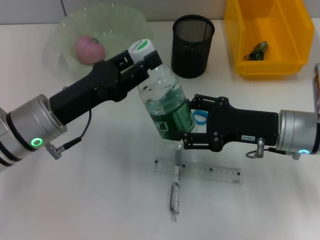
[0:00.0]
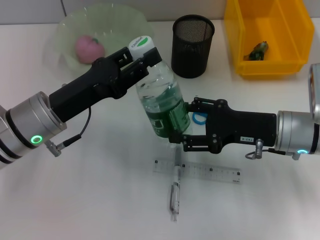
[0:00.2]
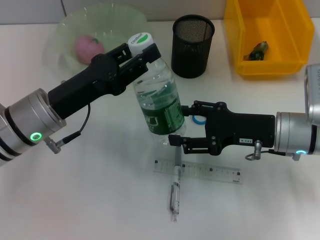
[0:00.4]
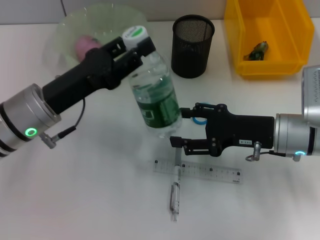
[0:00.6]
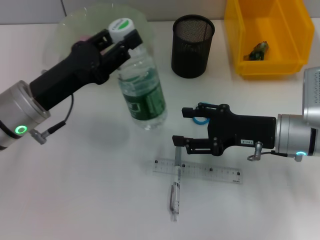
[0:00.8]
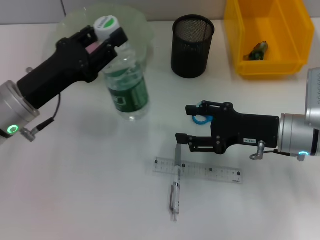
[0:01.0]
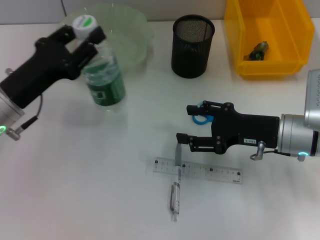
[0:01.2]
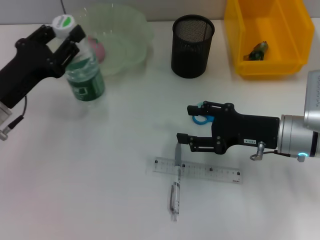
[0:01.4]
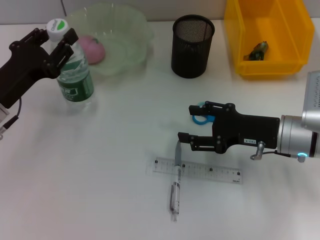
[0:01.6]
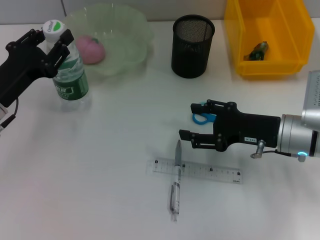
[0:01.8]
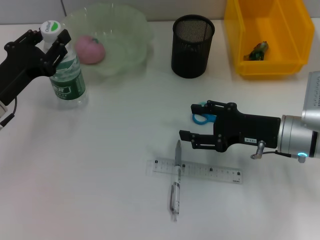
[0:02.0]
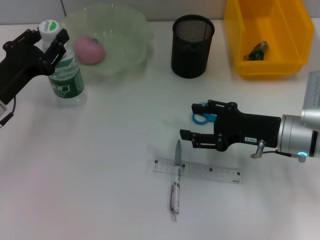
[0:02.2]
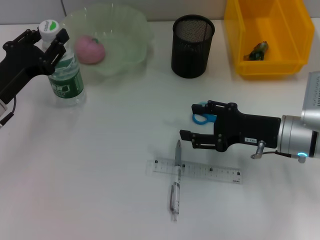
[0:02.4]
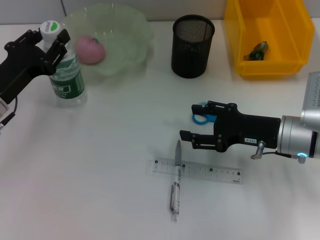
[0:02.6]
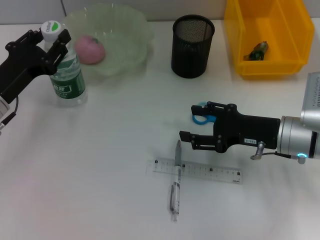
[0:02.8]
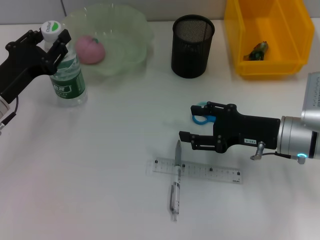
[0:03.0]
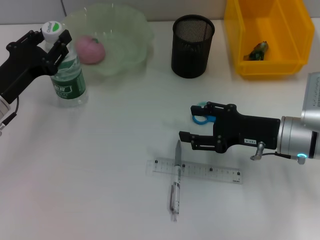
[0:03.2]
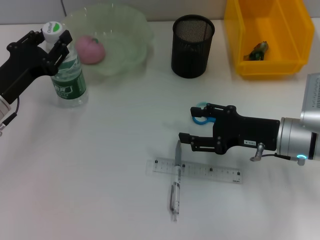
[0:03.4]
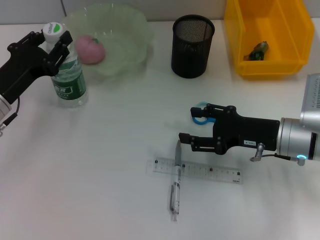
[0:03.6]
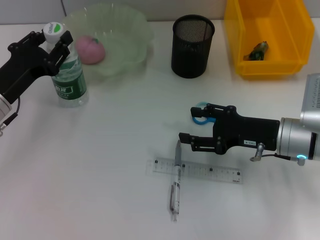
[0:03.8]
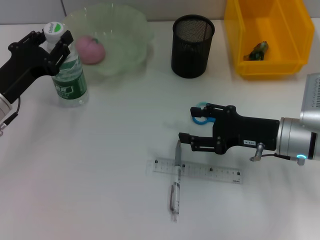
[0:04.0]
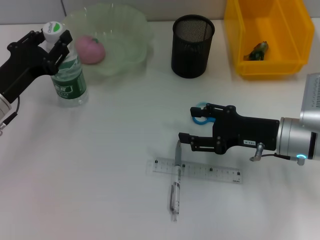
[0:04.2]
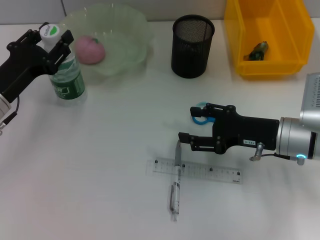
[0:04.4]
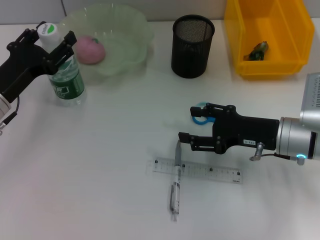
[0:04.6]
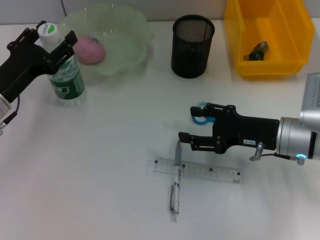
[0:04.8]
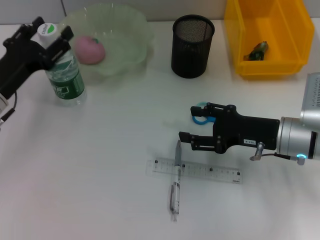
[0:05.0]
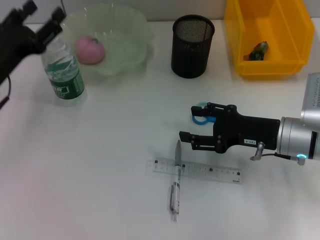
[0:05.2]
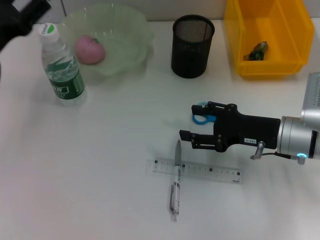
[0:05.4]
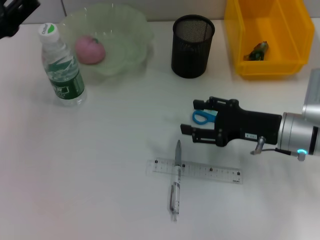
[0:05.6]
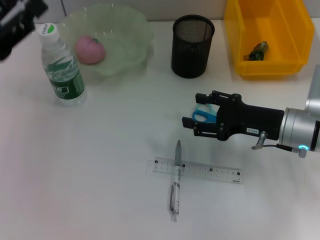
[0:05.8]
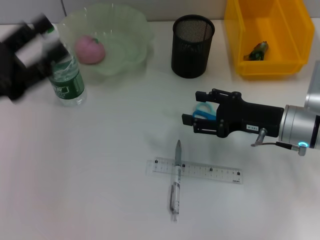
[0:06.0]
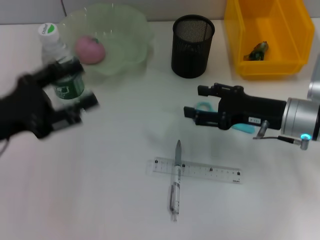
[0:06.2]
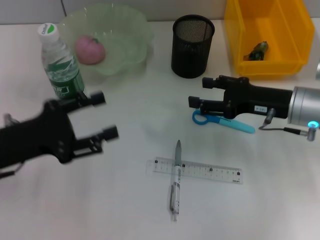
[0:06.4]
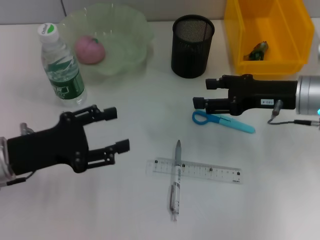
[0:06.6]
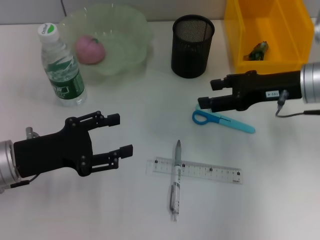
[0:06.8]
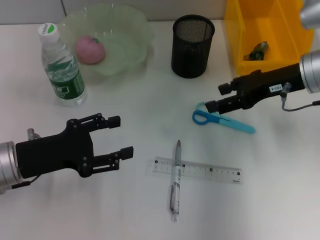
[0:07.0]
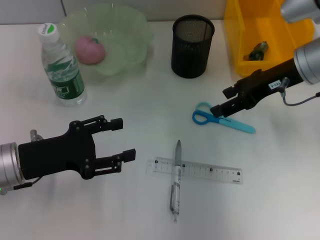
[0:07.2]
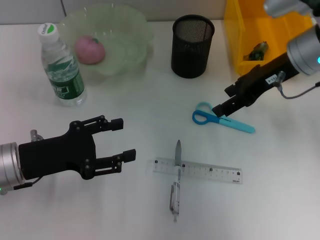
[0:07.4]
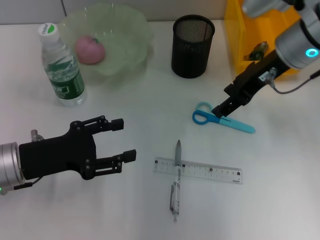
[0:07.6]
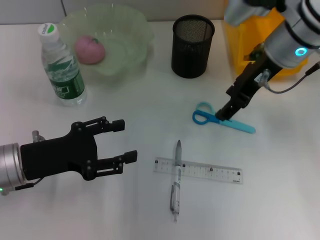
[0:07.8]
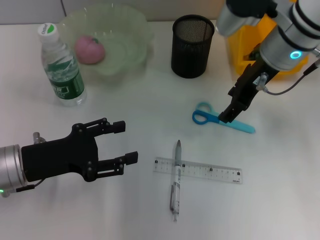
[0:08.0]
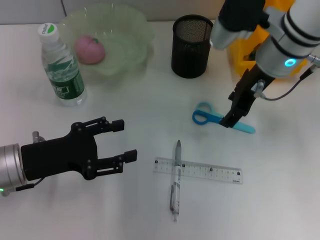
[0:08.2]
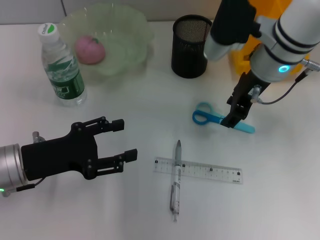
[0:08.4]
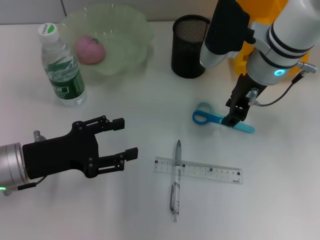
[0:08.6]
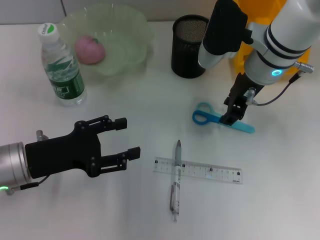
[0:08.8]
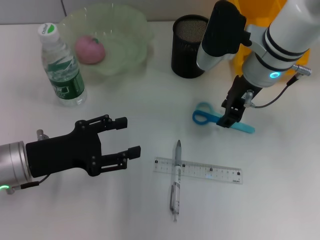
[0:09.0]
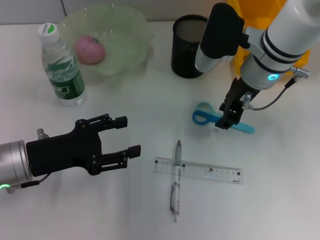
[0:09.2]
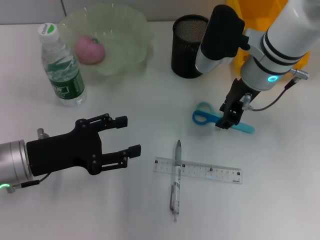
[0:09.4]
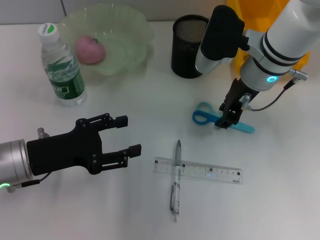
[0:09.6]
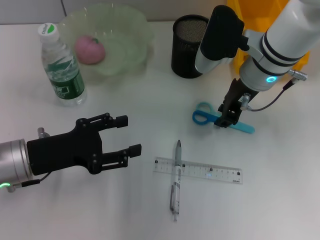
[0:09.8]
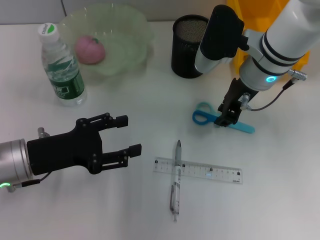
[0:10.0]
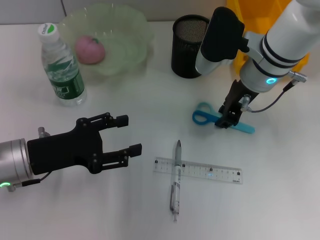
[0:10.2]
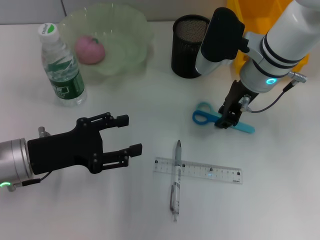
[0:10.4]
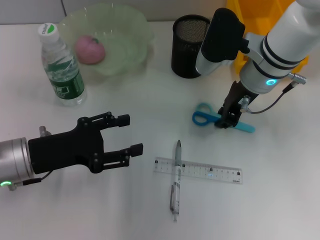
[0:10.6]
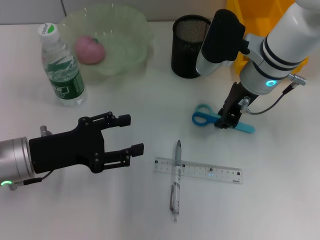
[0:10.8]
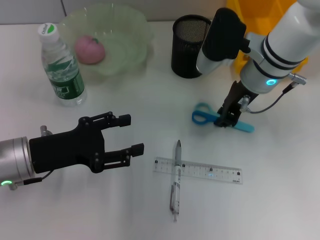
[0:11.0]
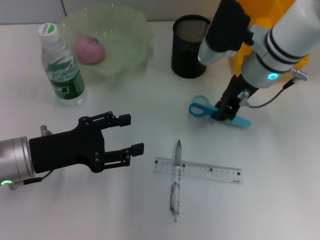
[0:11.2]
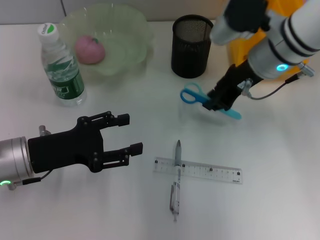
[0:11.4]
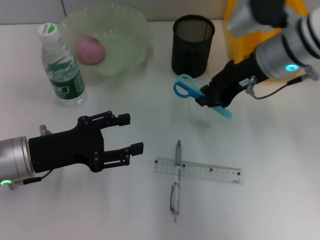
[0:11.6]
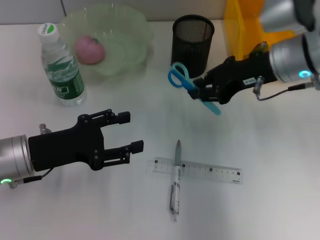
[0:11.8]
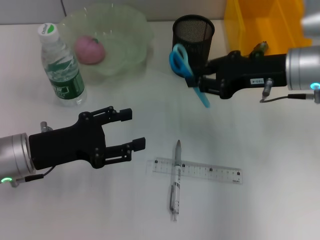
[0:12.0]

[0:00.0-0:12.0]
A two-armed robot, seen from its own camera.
Step, 0:00.0 to 0:04.8: Place the water bottle on the table with the left hand.
Step, 0:05.0 to 0:10.8: Grab the blue scissors with the right hand.
0:00.0 to 0:01.6: The left gripper moves to the left, about 10 cm.
0:01.6 to 0:03.0: The grippers stay close to where they were, moving slightly.
0:03.0 to 0:04.4: Both grippers stay about where they are.
0:04.4 to 0:06.0: The left gripper heads upward and backward, covering about 10 cm, and opens its fingers.
0:06.0 to 0:07.6: The right gripper heads upward and forward, covering approximately 15 cm. Meanwhile the left gripper shifts about 5 cm downward.
0:07.6 to 0:09.0: The right gripper moves some 5 cm, and closes.
0:09.0 to 0:10.4: Neither gripper changes place.
0:10.4 to 0:12.0: The right gripper shifts some 10 cm to the right.

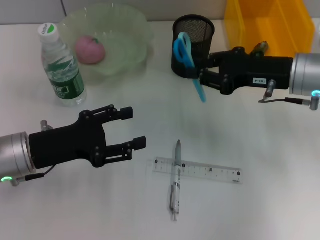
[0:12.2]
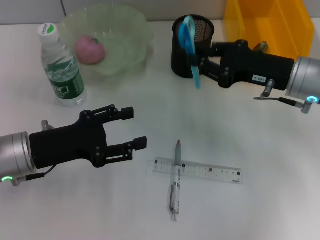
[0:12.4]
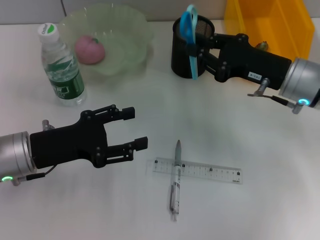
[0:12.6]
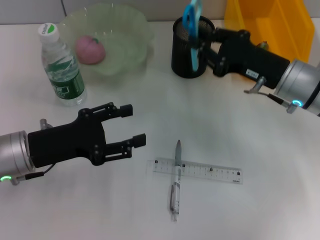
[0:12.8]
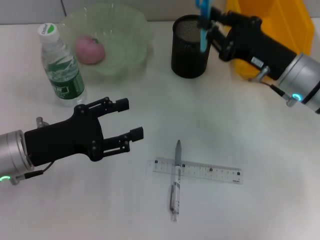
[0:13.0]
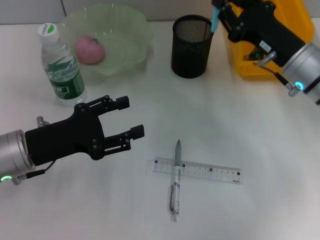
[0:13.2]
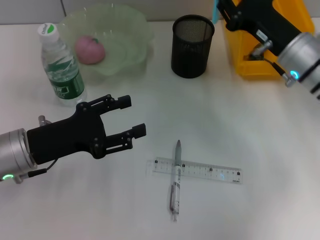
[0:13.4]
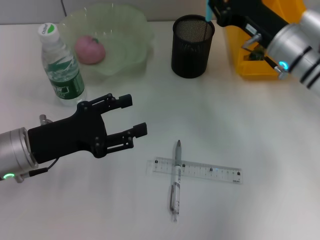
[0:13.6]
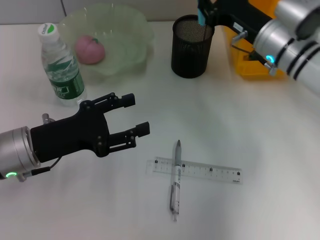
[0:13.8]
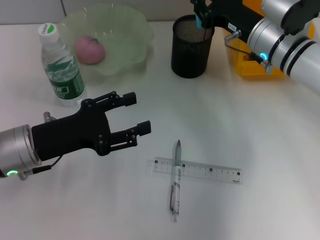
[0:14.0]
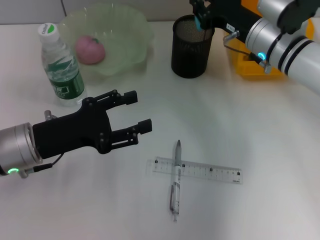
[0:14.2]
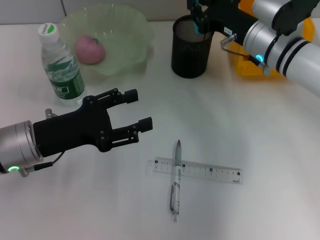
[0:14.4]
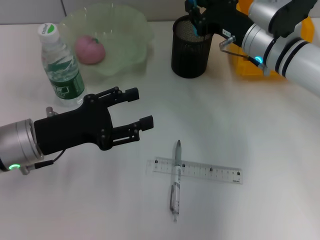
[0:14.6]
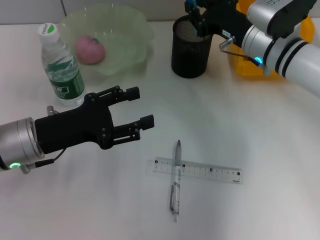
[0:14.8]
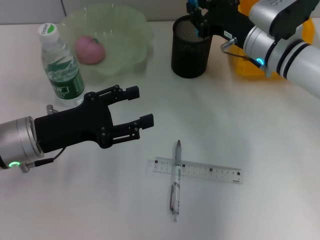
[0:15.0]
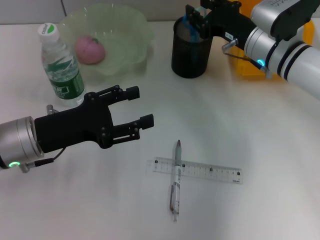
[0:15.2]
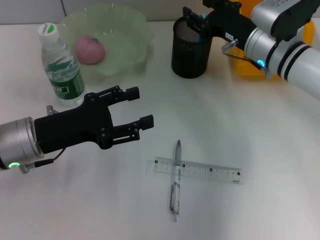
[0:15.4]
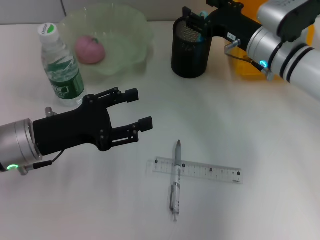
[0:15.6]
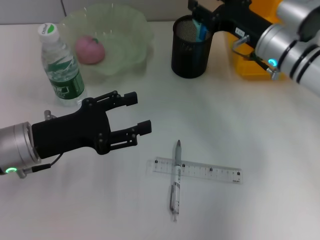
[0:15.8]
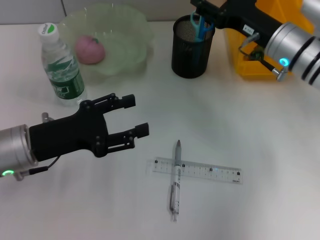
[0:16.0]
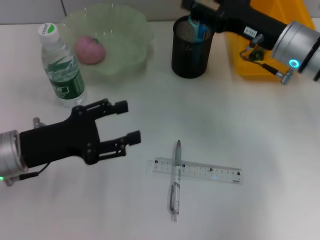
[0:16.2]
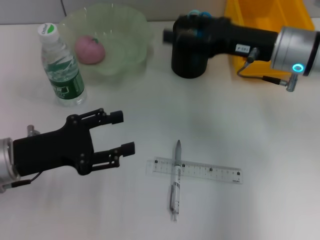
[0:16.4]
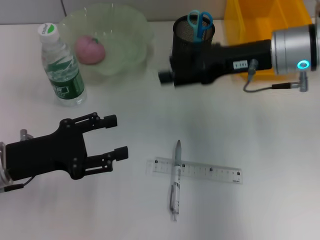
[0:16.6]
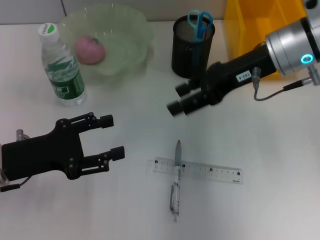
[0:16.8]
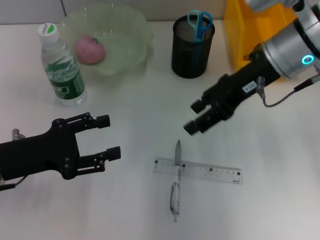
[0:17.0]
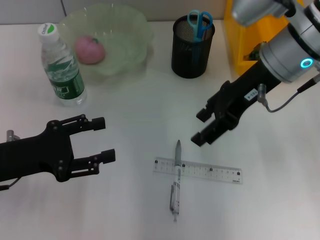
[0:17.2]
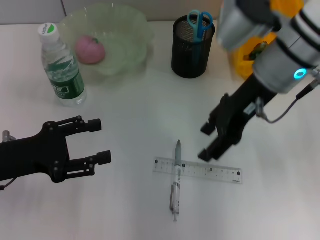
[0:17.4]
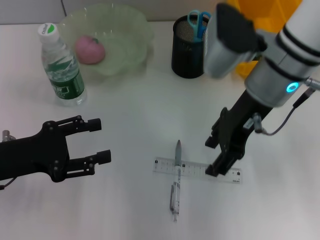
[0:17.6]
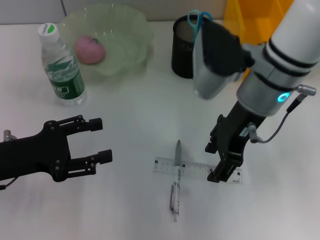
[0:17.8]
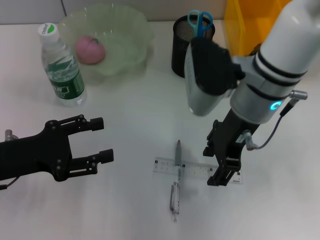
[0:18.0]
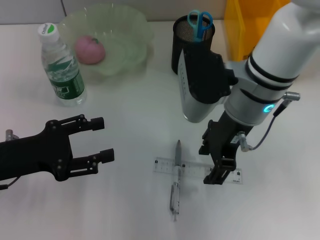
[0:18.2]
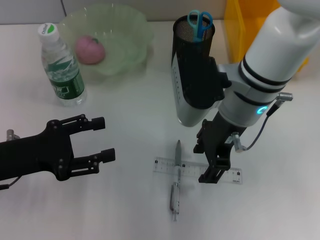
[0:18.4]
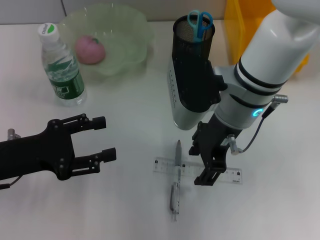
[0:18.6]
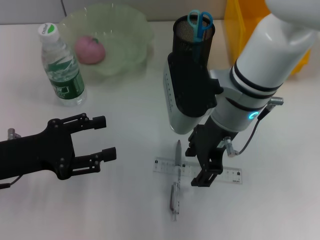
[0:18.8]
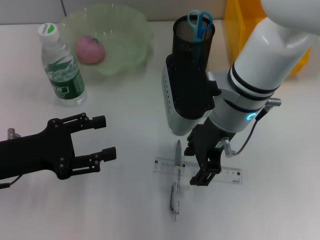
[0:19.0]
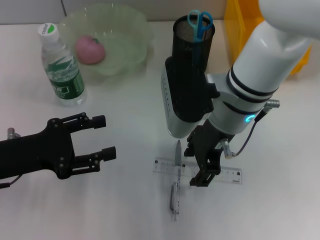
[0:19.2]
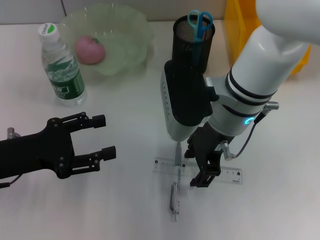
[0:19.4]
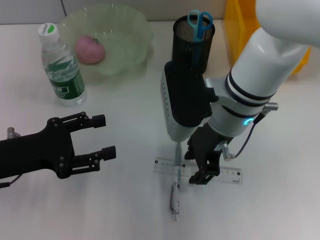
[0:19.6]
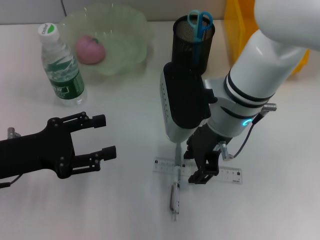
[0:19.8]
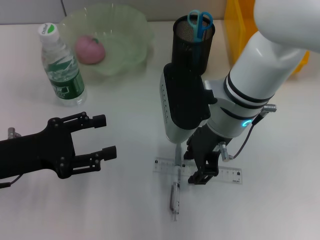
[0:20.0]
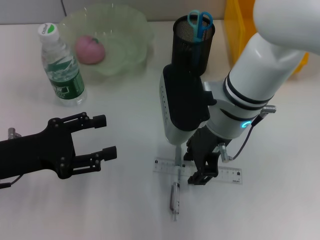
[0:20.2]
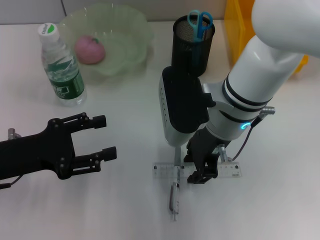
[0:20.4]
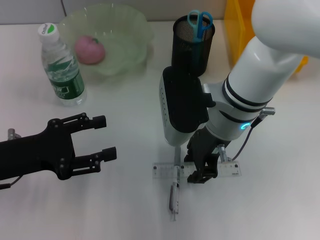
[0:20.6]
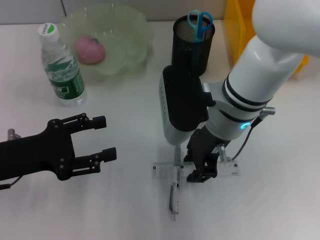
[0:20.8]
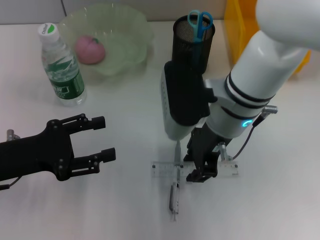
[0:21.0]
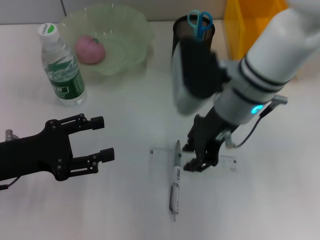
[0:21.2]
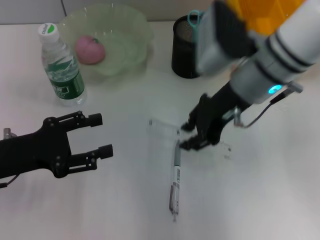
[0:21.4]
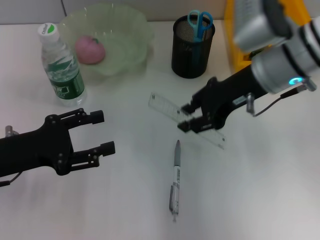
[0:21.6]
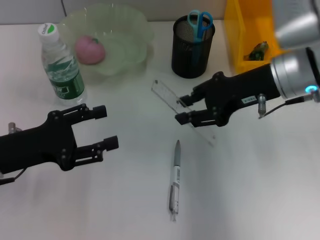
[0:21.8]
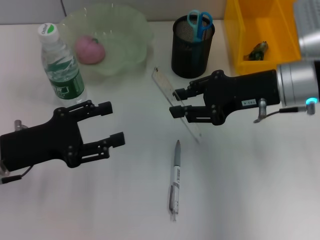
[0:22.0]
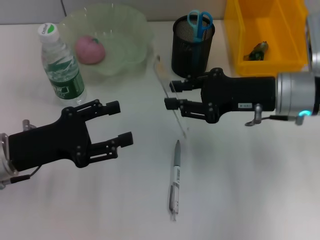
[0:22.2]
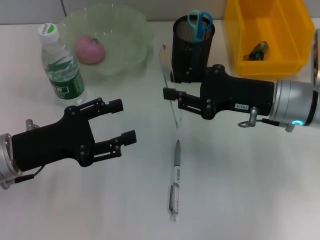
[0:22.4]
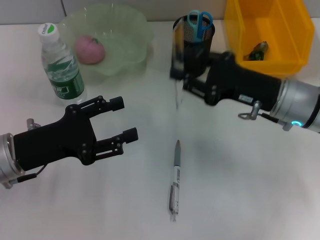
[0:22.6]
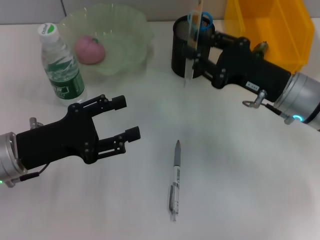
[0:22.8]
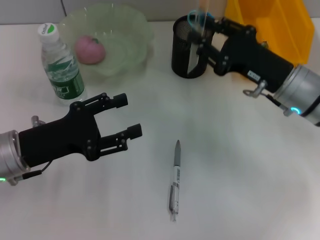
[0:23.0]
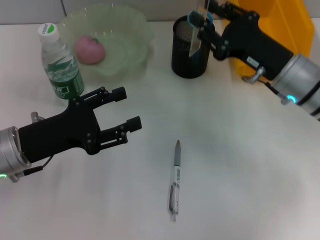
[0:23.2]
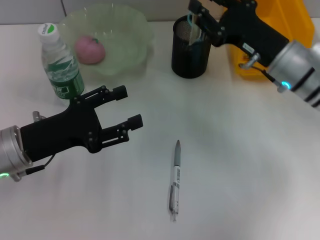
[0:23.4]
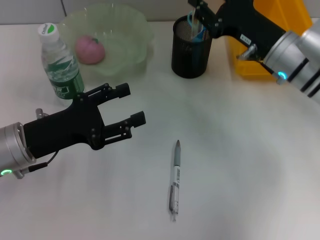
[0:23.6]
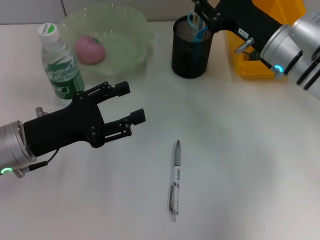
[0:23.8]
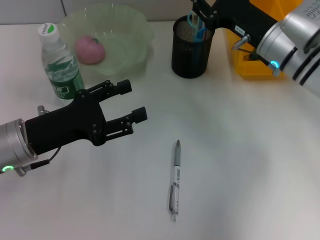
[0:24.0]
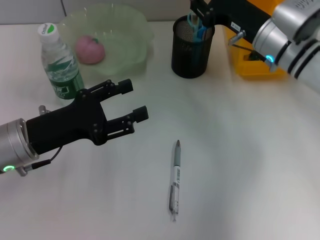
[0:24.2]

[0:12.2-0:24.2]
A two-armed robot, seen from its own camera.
Step, 0:12.2 to 0:15.2: Place the blue scissors into the pen holder with the right hand.
Step, 0:15.4 to 0:20.4: Grab the ruler with the right hand.
0:12.2 to 0:13.8: The right gripper is displaced forward by some 5 cm.
0:13.8 to 0:15.2: The grippers stay close to where they were, moving slightly.
0:15.2 to 0:16.6: The right gripper is displaced upward by roughly 10 cm, and opens its fingers.
0:16.6 to 0:18.2: The right gripper is displaced to the left by some 10 cm.
0:18.2 to 0:21.2: The grippers move only a little.
0:21.2 to 0:22.6: The right gripper goes about 15 cm to the right and downward.
0:22.6 to 0:24.2: The right gripper is displaced forward by some 10 cm.
